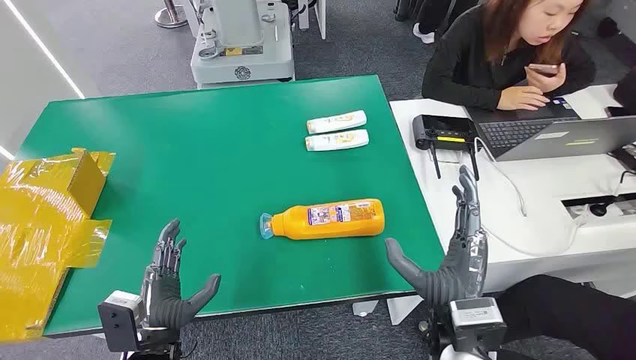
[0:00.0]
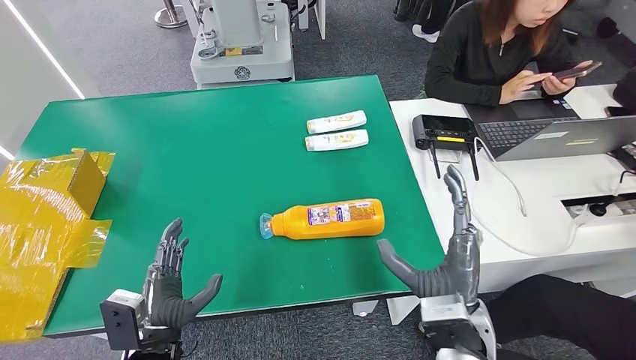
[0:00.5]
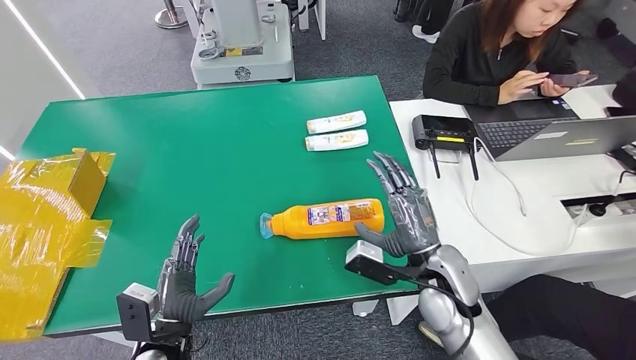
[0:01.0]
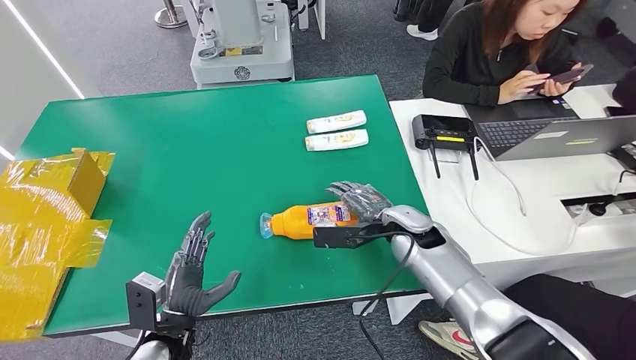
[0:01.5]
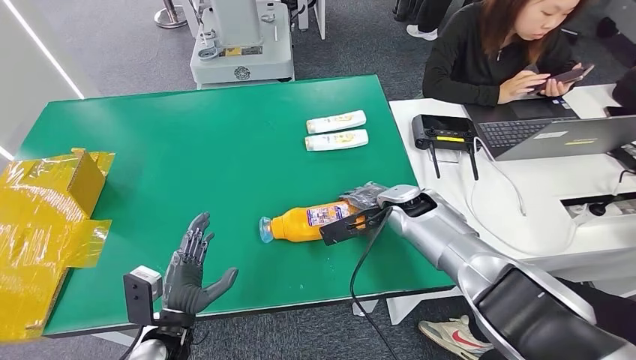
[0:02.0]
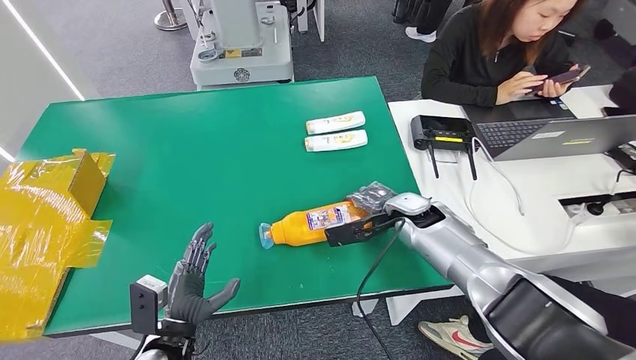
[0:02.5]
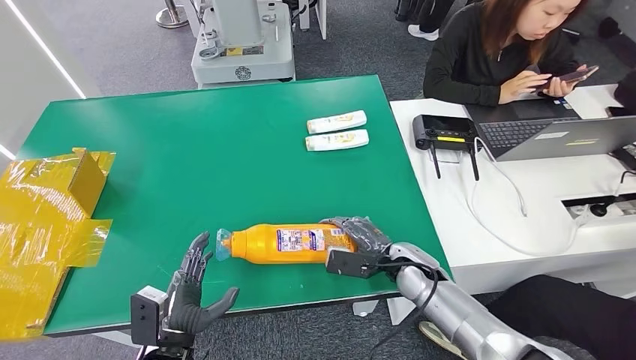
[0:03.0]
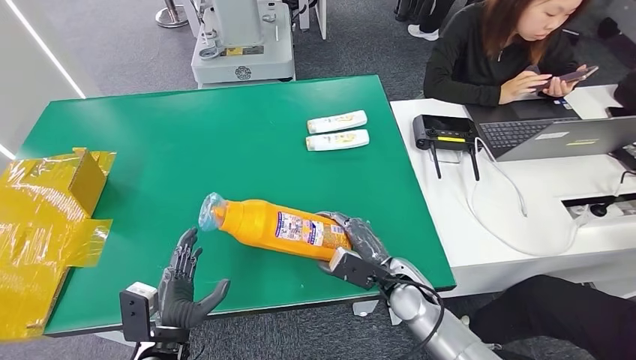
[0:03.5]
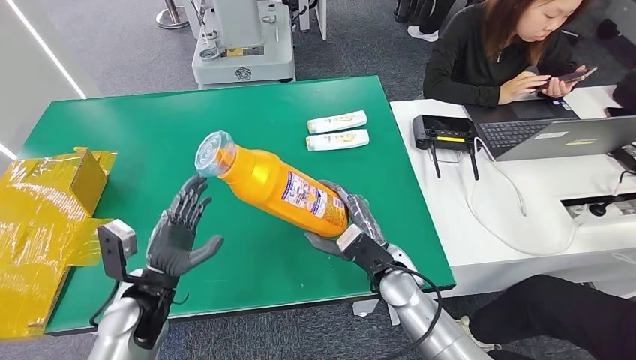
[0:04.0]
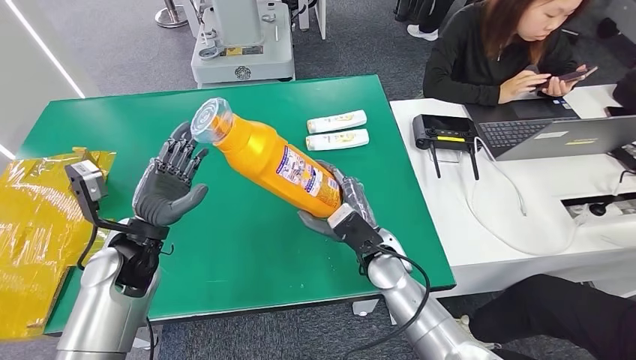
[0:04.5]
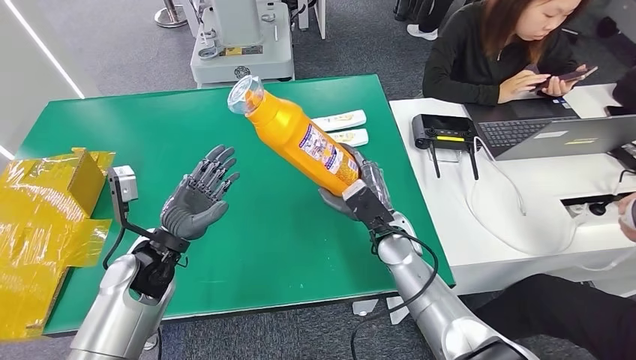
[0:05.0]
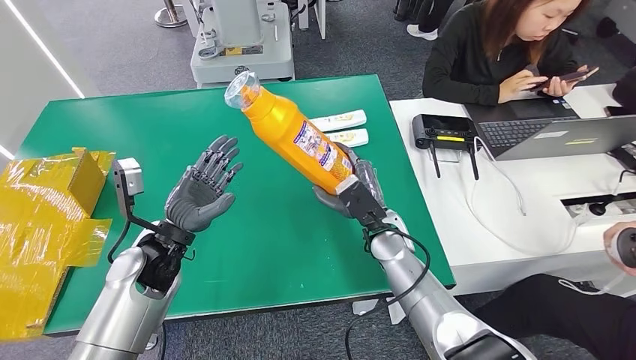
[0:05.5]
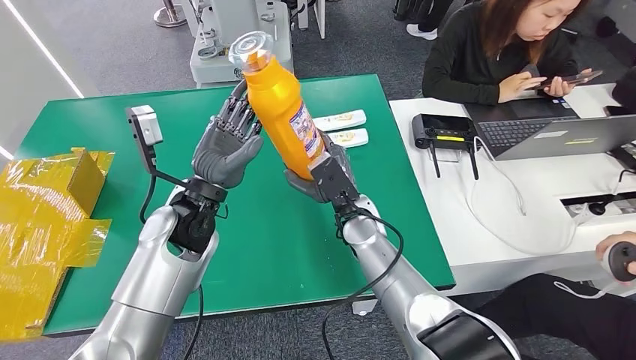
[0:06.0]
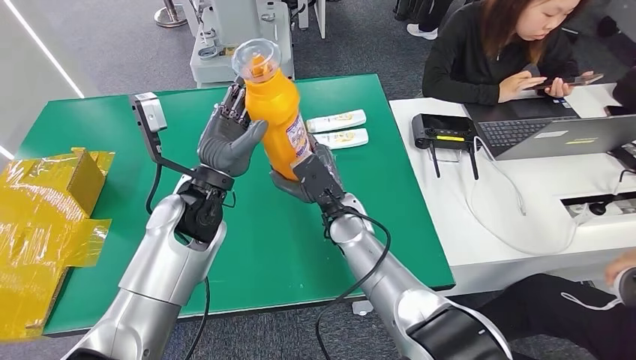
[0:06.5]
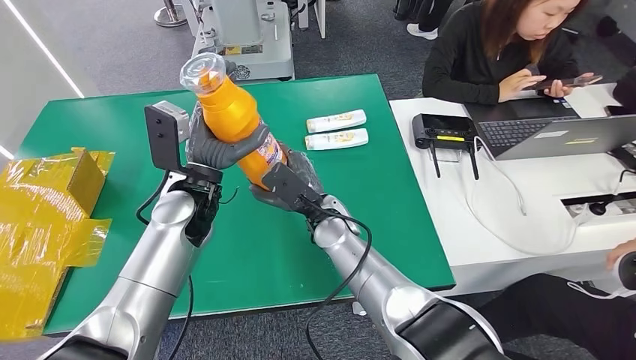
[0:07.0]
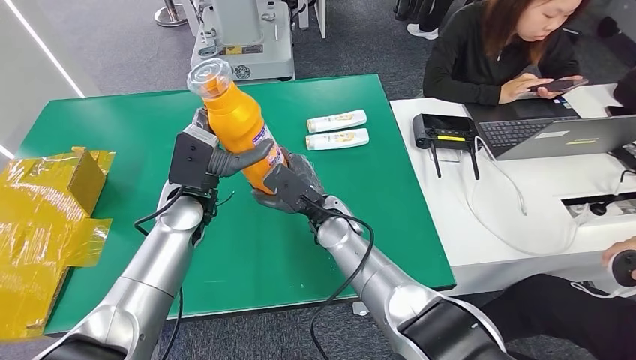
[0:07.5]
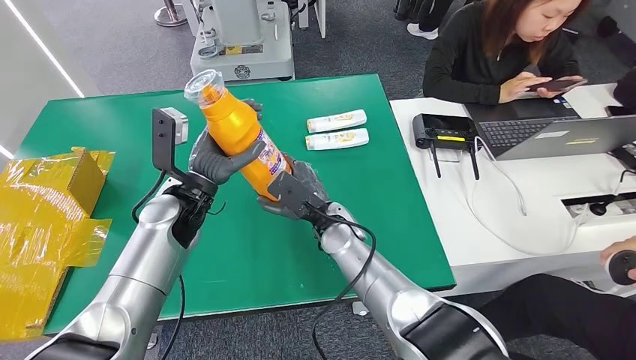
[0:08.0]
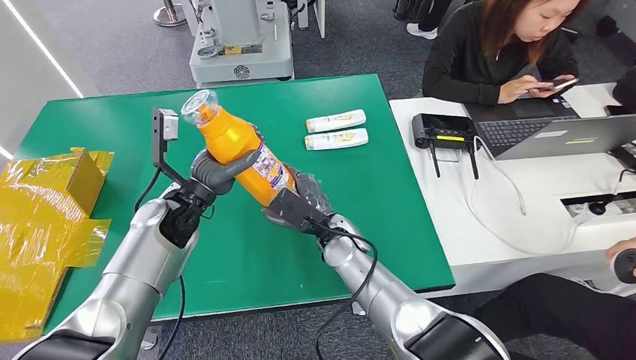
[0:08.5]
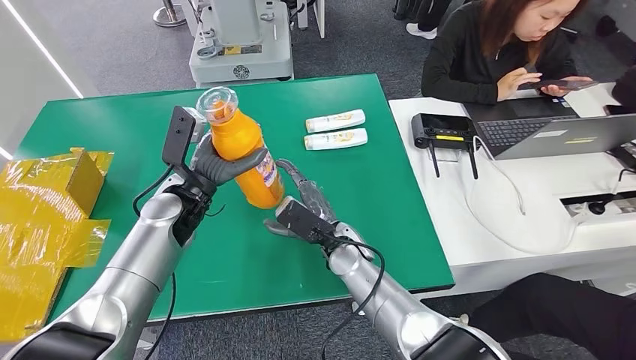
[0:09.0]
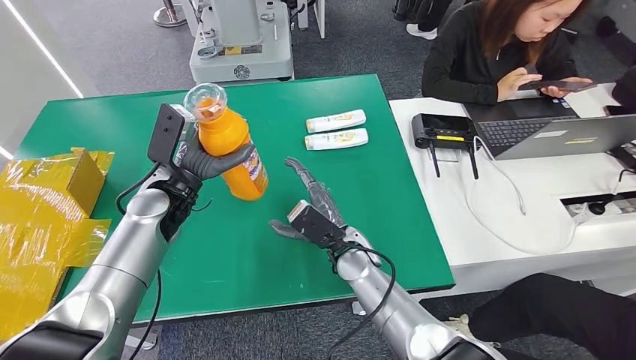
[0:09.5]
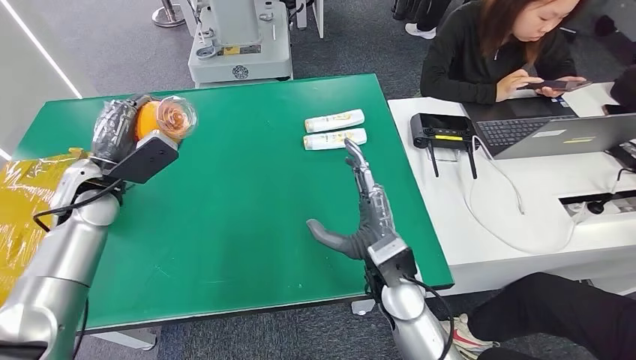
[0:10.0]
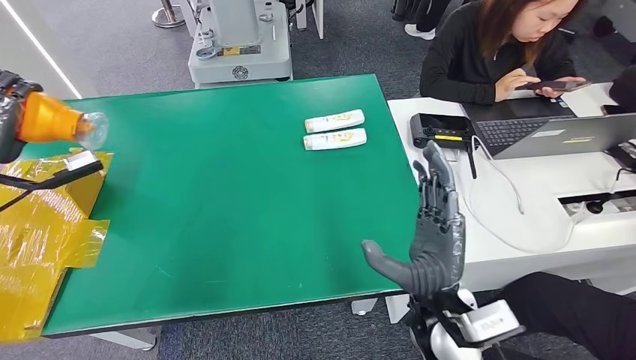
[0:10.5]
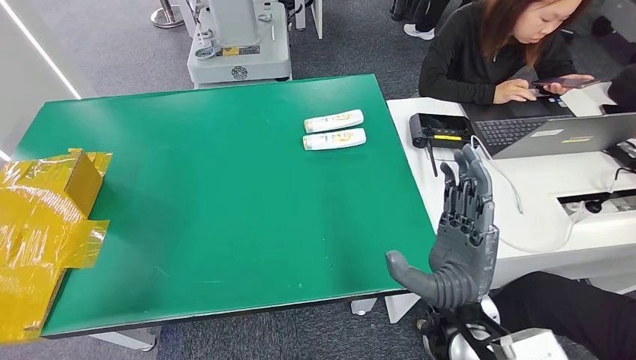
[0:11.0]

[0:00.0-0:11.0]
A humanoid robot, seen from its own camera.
Step, 0:00.0 to 0:03.5: Pick up the bottle from the table.
0:02.0 to 0:03.5: The right hand goes approximately 15 cm backward and downward.
0:07.5 to 0:09.0: The right hand shifts by roughly 5 cm.

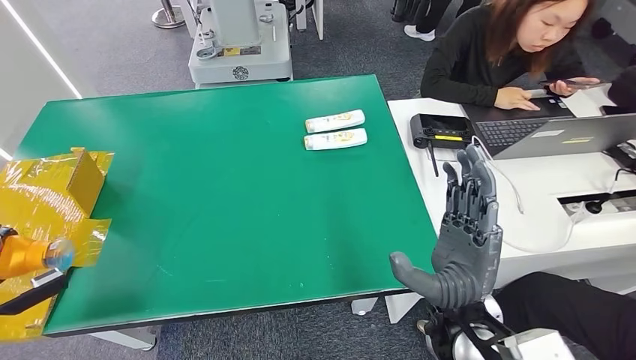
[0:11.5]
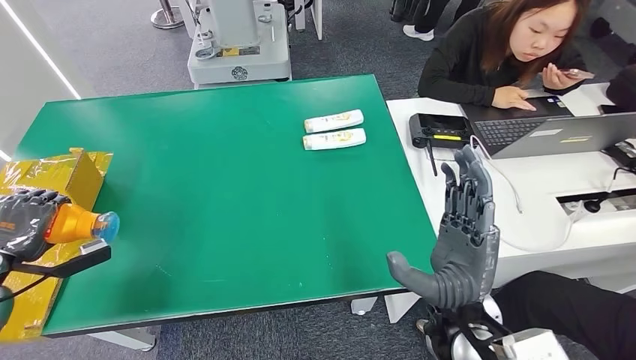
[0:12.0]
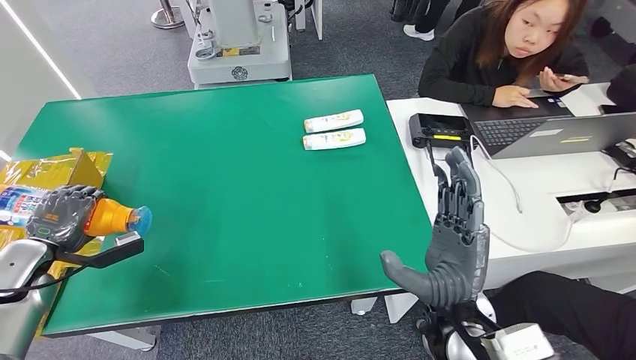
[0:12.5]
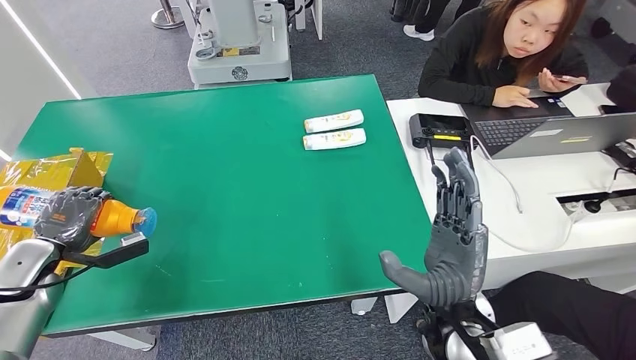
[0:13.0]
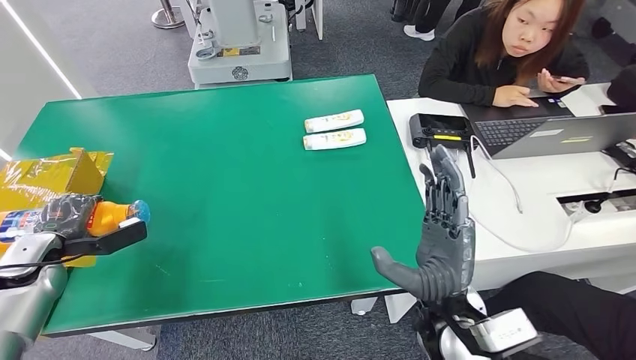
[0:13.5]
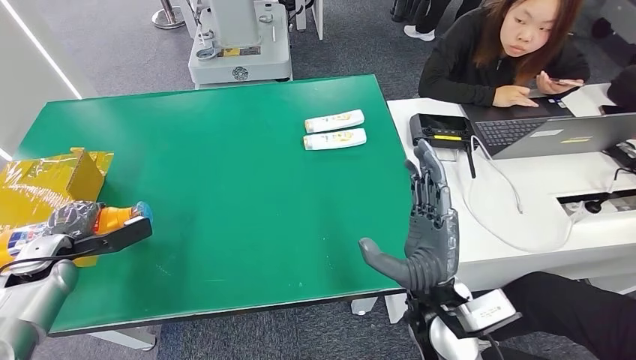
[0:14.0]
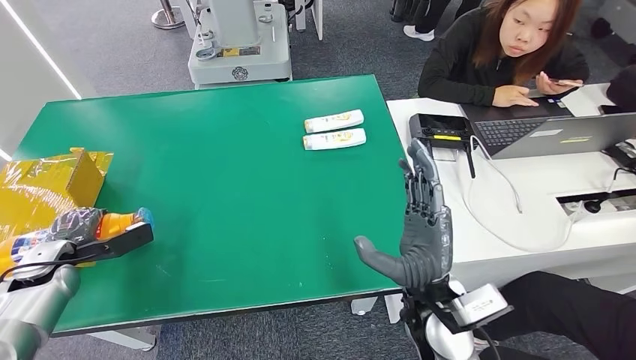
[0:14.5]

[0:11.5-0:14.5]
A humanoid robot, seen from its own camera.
Step, 0:11.5 to 0:14.5: Turn the bottle to the front side.
0:11.5 to 0:13.0: The left hand shifts roughly 15 cm to the right and forward.
